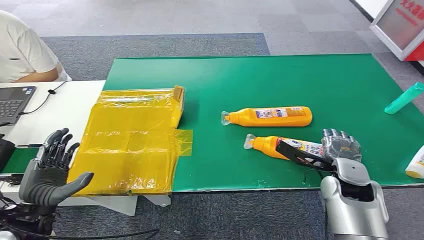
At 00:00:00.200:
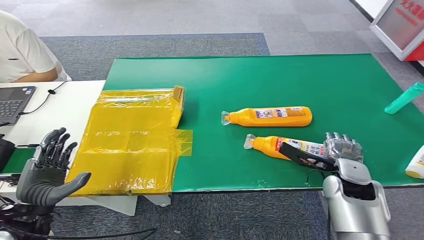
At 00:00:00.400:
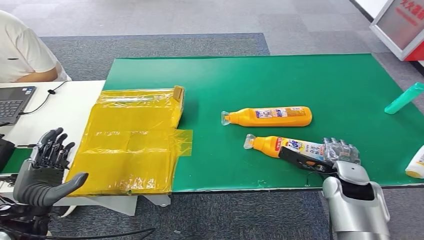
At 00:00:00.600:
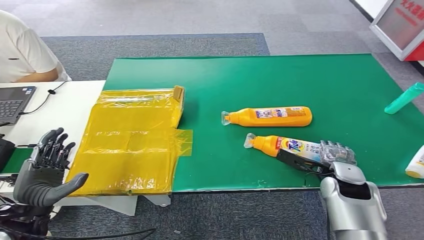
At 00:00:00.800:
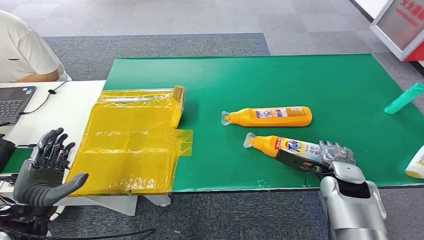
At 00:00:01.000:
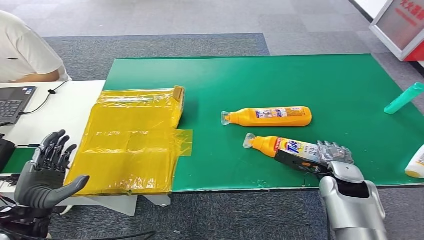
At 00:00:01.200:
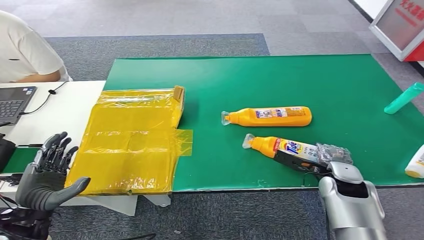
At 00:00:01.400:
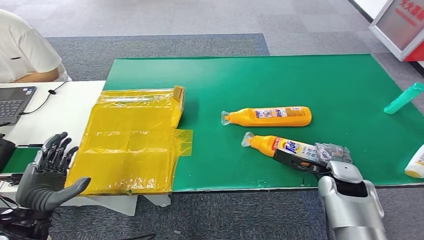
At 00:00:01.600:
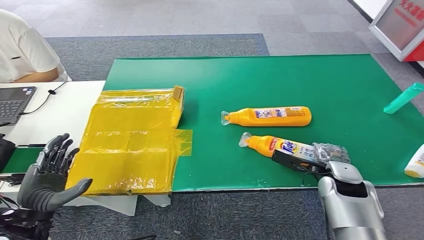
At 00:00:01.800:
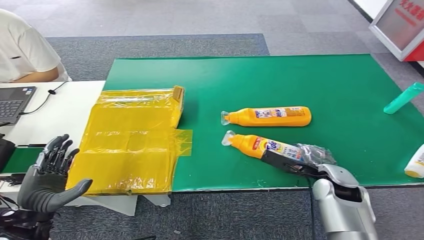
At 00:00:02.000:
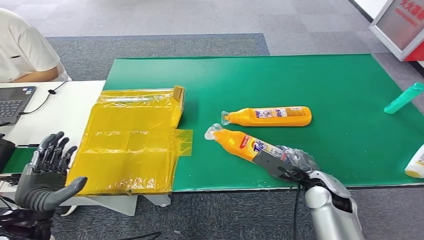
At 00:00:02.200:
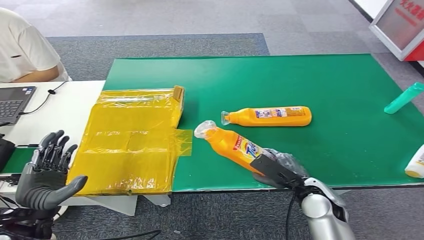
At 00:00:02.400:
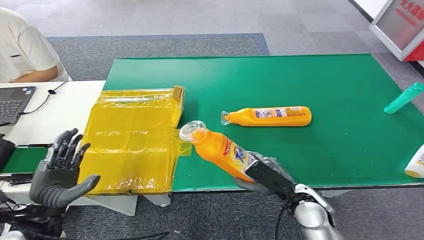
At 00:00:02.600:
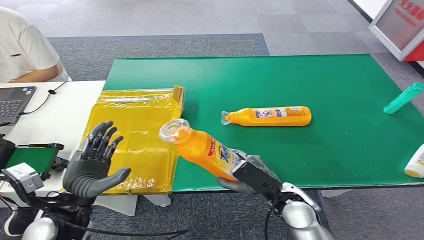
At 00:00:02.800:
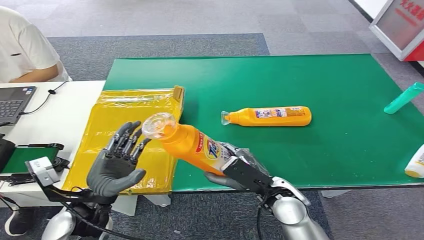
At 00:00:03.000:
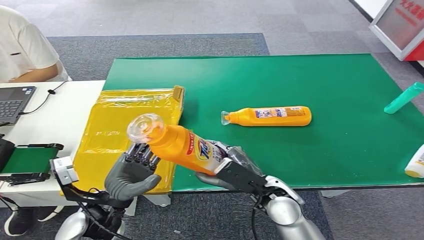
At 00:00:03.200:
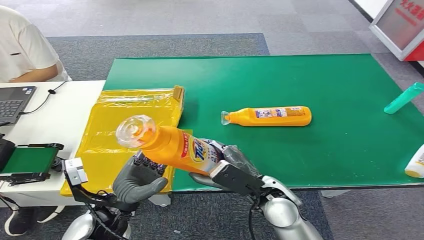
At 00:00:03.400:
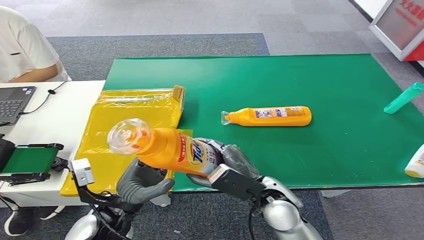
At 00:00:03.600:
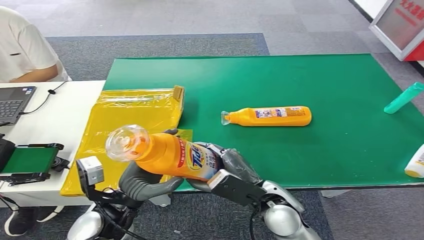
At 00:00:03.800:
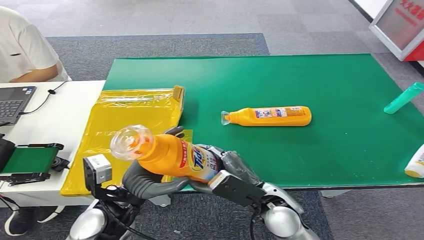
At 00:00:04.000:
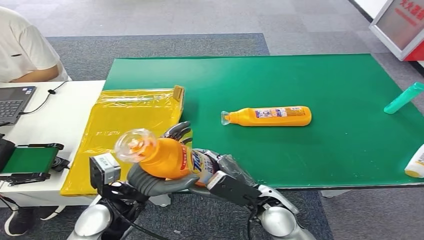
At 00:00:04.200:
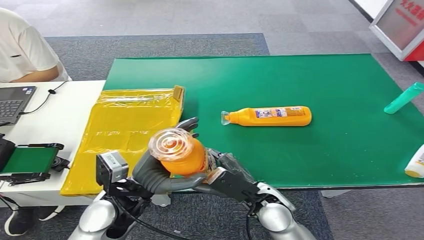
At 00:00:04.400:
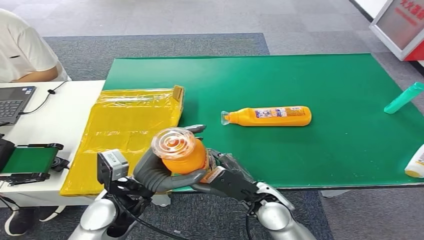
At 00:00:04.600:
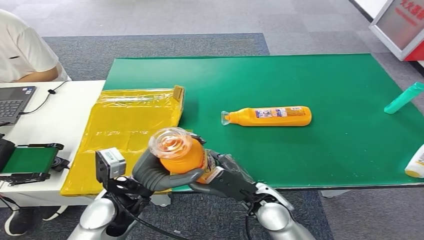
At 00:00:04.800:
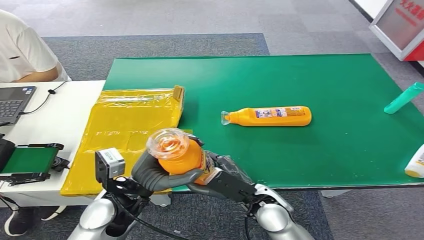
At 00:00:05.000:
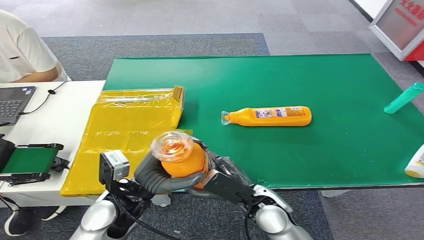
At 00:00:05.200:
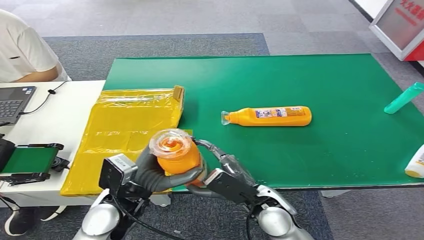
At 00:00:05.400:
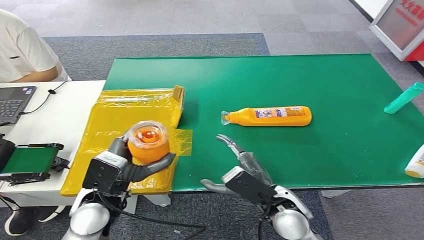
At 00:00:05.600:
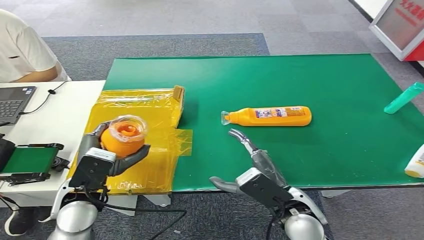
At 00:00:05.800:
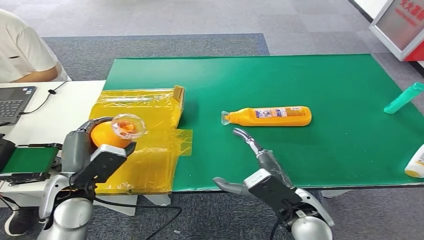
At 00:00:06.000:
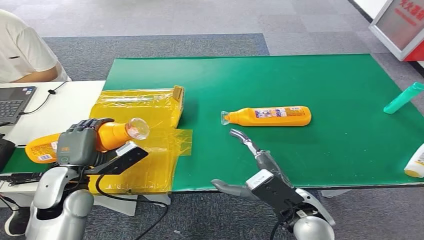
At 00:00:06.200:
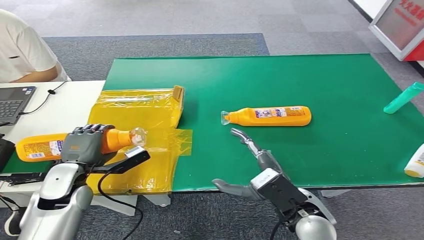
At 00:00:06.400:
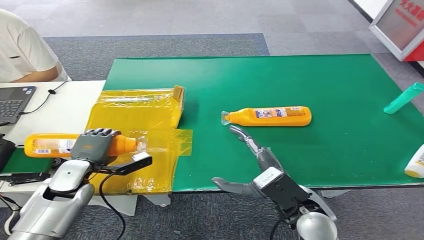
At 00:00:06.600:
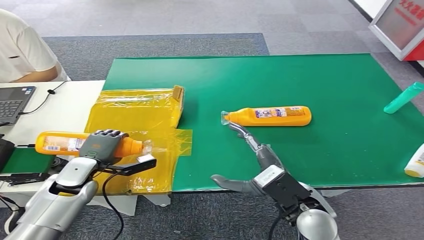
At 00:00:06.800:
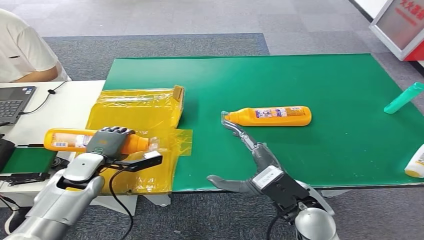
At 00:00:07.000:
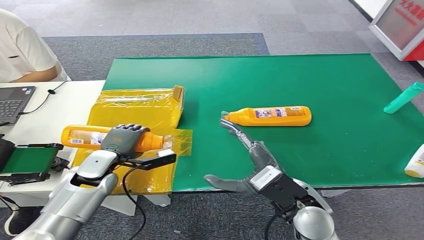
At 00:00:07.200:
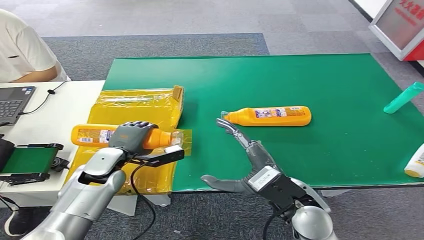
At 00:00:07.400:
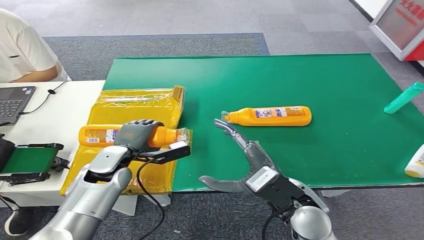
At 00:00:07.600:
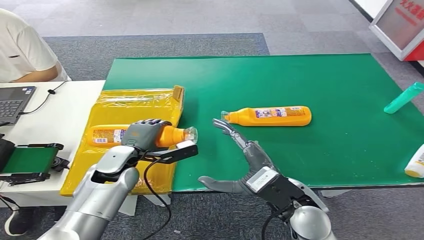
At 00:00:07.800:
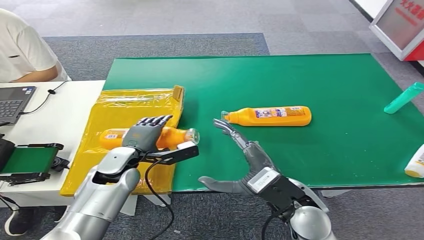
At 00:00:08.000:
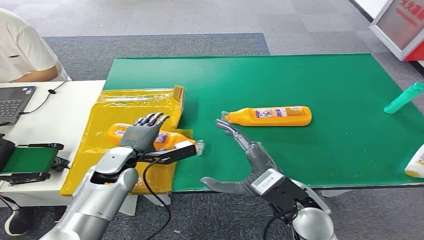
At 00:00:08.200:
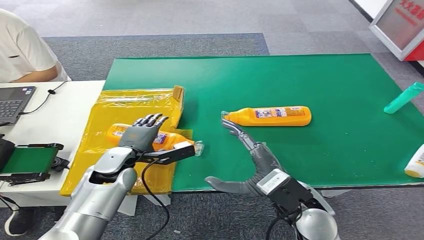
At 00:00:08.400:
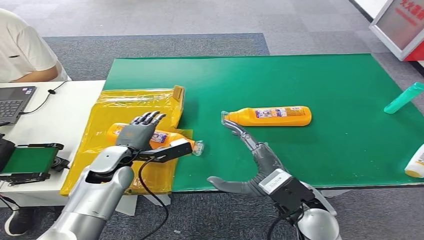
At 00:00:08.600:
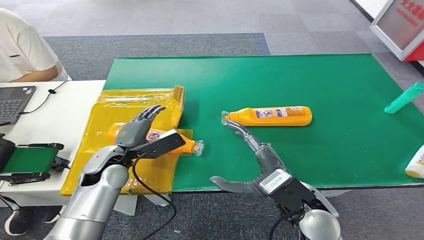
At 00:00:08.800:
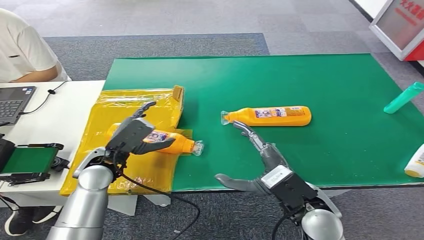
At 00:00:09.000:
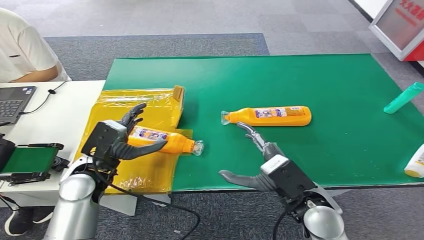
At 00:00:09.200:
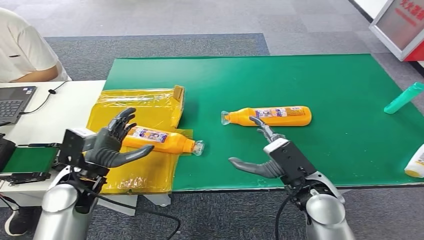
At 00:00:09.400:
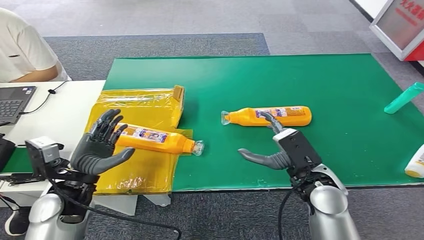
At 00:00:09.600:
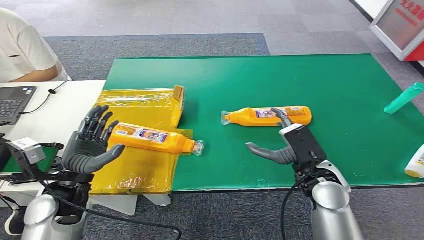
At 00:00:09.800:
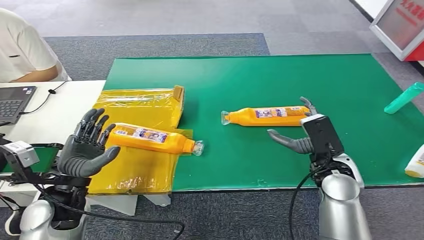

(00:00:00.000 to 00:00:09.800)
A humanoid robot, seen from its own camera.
Step, 00:00:00.000 - 00:00:02.600: Pick up the bottle from the table.
Step, 00:00:02.800 - 00:00:09.600: Turn the bottle to the front side.
00:00:02.800 - 00:00:04.200: The left hand shifts some 5 cm to the right.
00:00:04.200 - 00:00:05.600: The right hand changes place by approximately 5 cm. Meanwhile the left hand is displaced to the left by some 5 cm.
00:00:05.600 - 00:00:07.000: The left hand travels forward and downward by about 10 cm.
00:00:07.000 - 00:00:08.400: The left hand moves about 5 cm.
